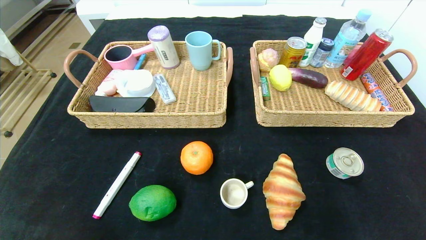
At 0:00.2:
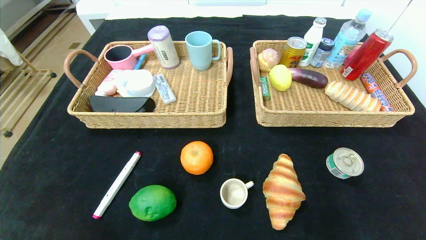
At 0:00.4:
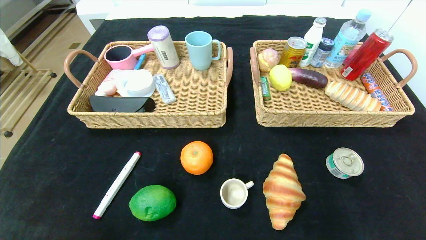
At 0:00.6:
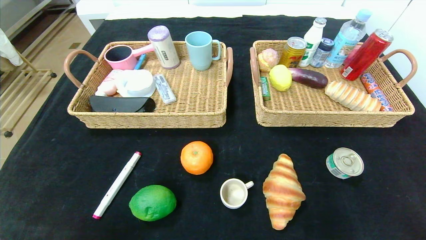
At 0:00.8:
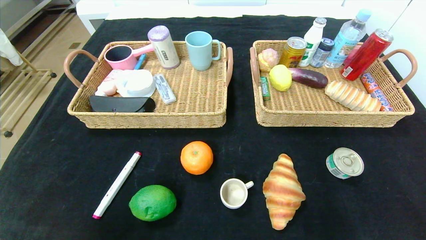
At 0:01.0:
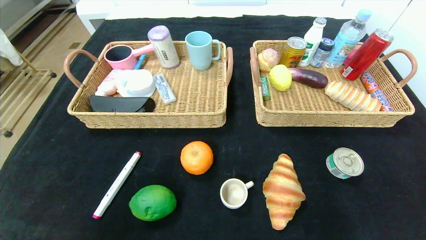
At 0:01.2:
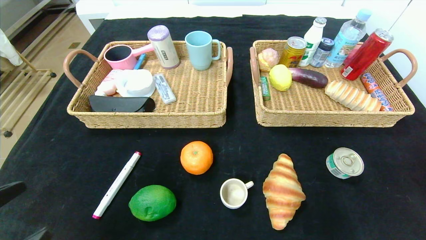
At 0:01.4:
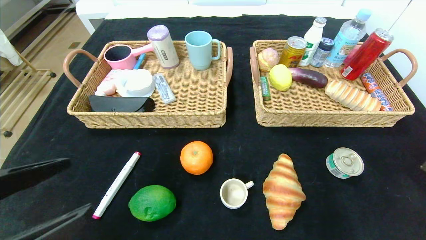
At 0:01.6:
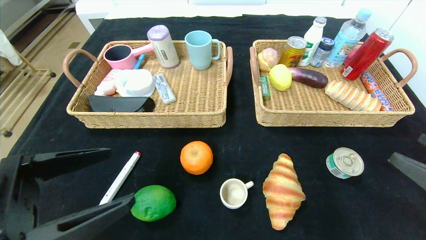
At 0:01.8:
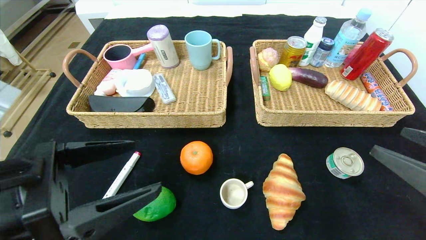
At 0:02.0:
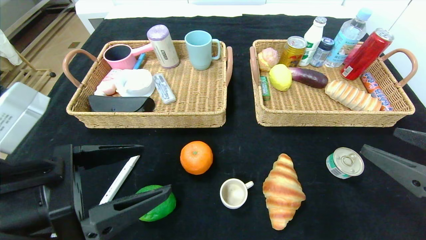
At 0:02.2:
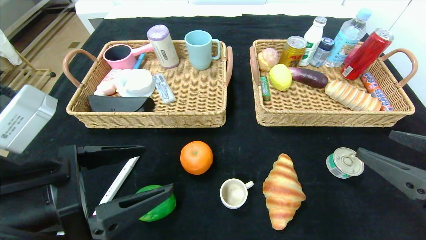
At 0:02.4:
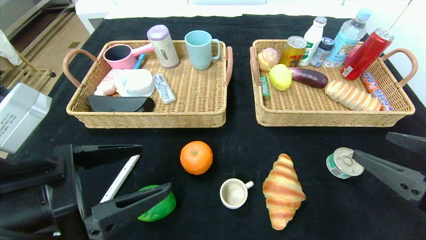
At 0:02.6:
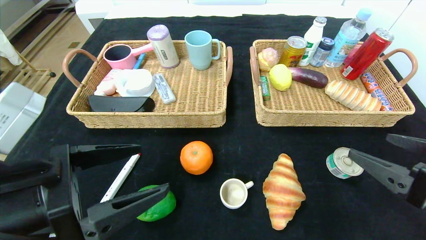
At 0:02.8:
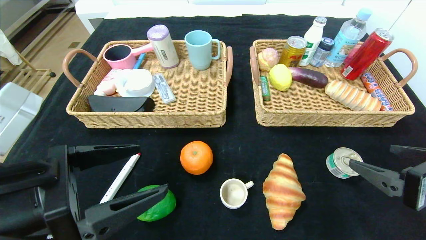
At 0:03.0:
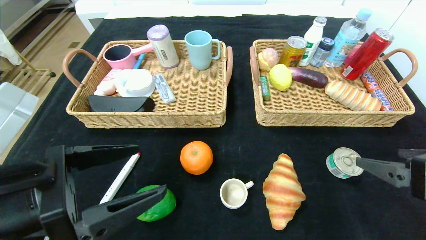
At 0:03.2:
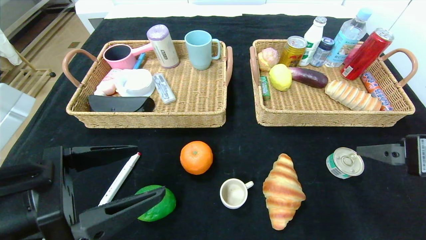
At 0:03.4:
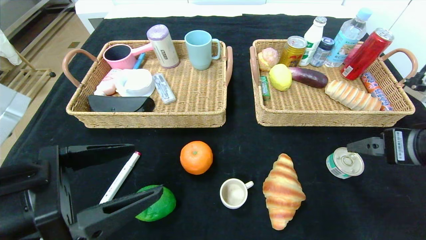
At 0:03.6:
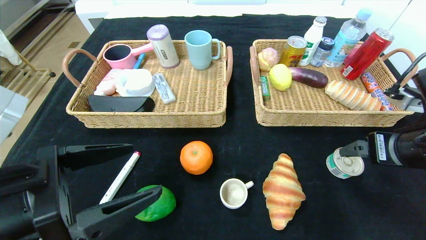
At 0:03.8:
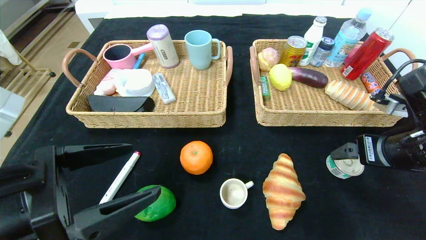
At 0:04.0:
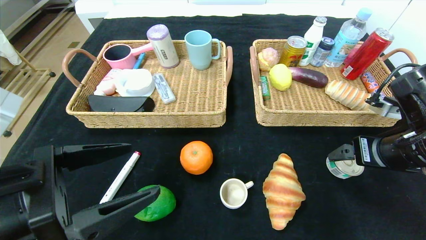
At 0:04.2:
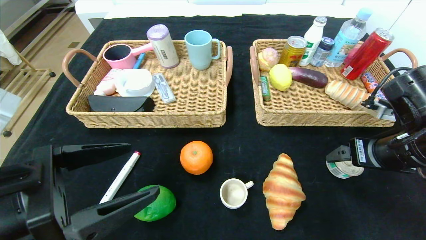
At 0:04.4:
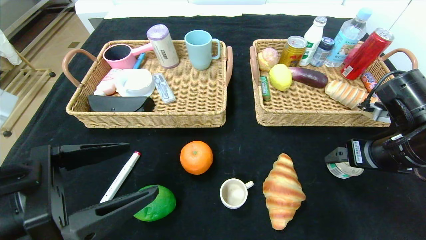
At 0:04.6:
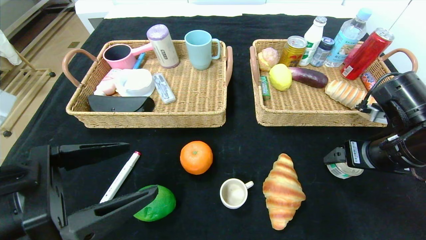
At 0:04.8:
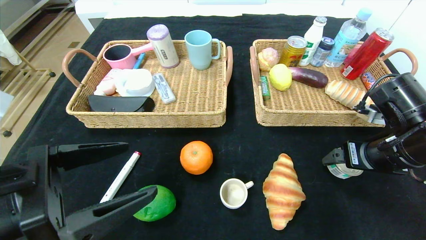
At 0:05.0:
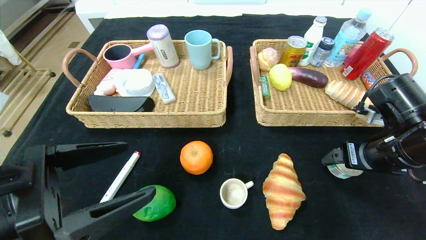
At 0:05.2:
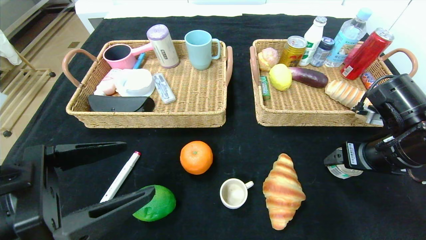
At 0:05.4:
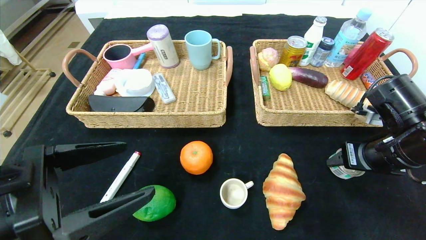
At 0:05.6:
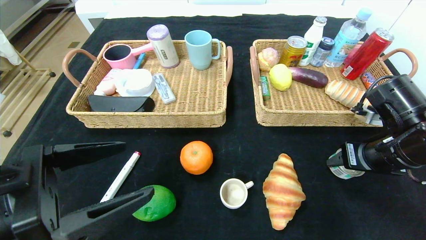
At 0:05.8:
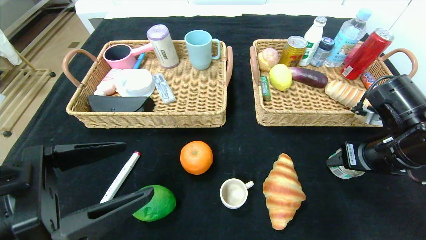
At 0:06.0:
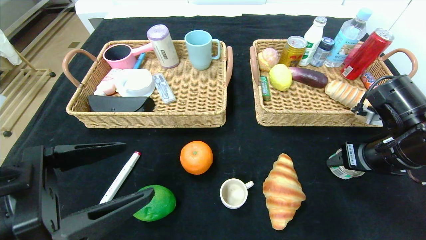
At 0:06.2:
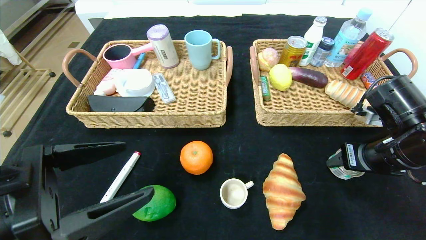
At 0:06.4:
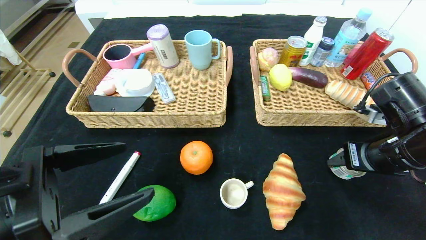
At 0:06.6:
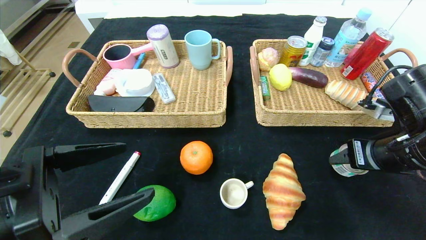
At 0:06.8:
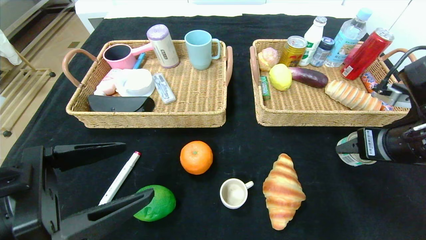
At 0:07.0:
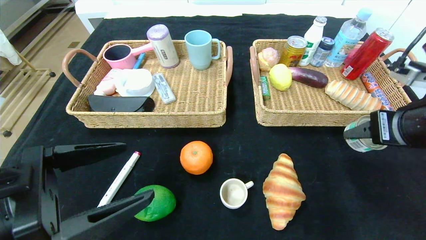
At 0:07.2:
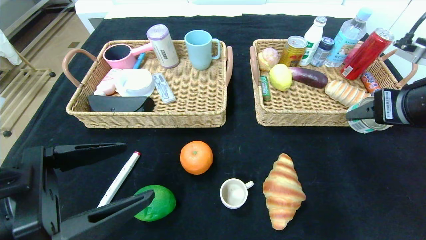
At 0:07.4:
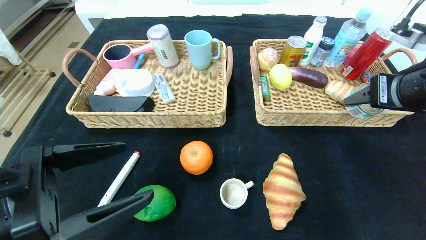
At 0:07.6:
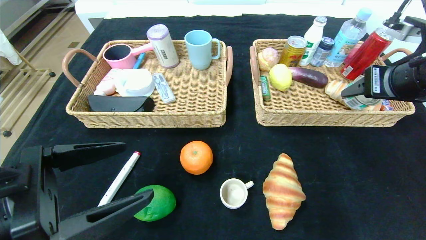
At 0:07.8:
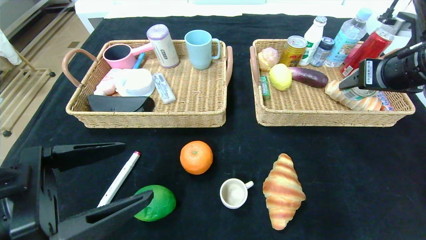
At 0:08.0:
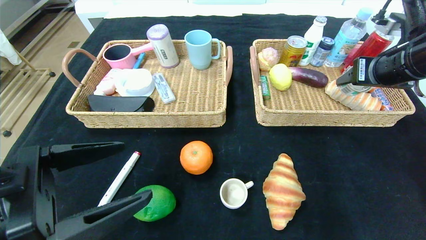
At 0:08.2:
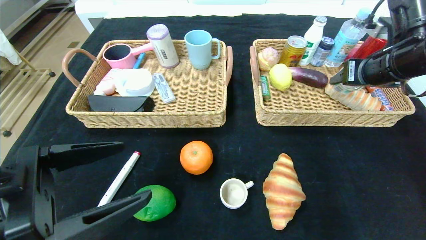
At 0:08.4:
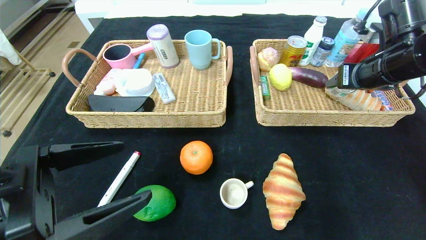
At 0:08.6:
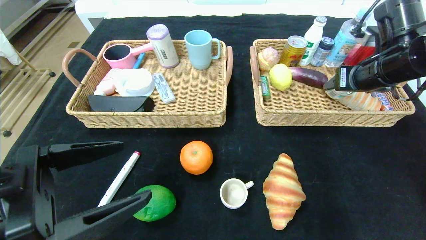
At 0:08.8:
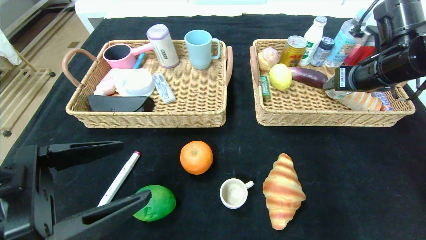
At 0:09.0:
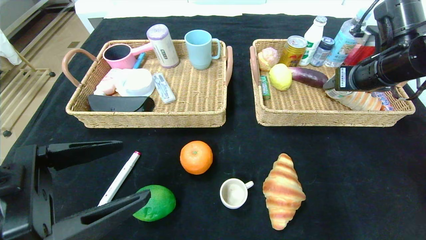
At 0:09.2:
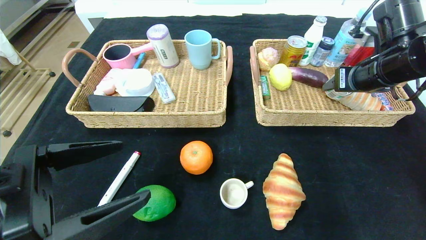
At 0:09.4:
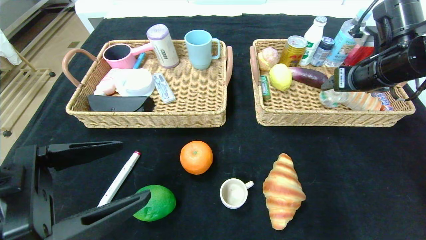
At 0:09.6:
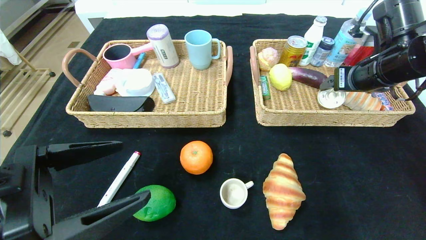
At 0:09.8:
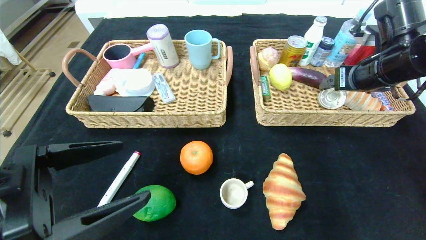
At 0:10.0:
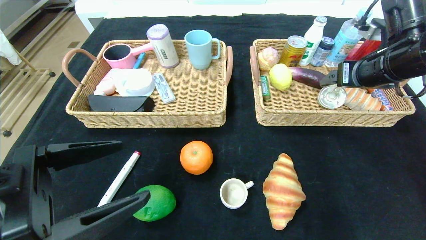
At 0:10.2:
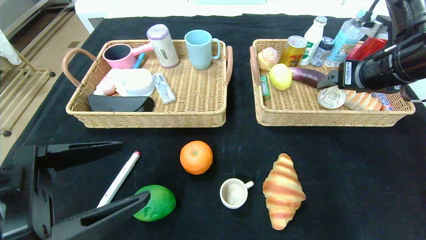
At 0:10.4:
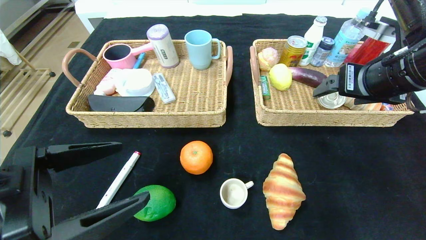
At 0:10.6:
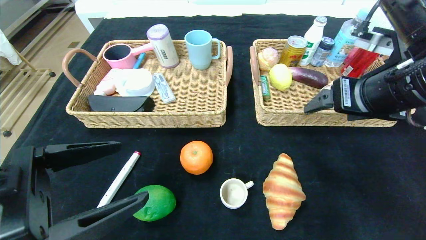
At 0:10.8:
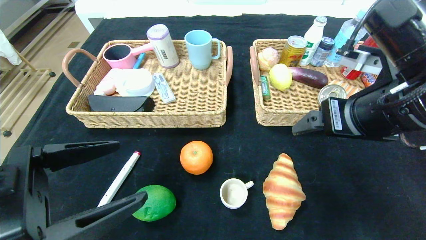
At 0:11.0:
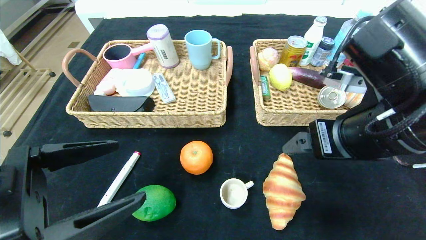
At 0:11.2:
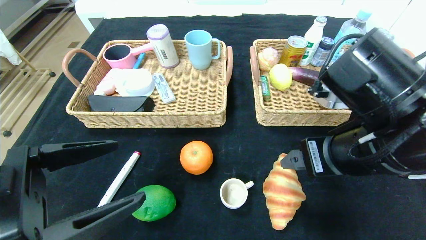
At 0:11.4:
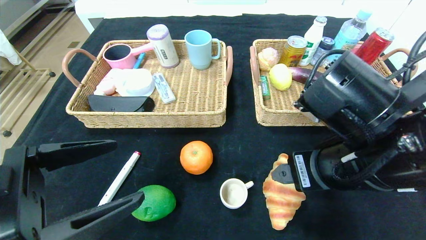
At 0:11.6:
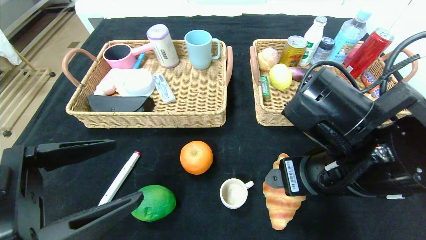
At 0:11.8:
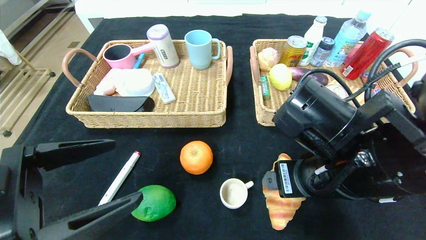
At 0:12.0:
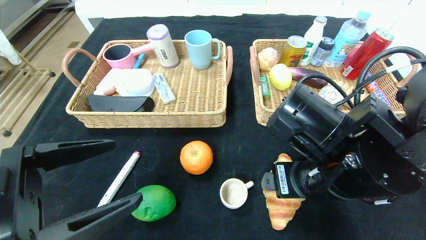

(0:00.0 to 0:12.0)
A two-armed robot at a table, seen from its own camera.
Step, 0:00.0 - 0:09.6: Grasp the can and put it in the right basket.
0:00.0 - 0:01.6: Both grippers move upward and forward, some 20 cm.
0:01.6 - 0:03.0: The right gripper moves approximately 5 cm.
0:03.0 - 0:04.4: The right gripper is displaced forward by some 10 cm.
0:04.4 - 0:06.0: The right gripper closes.
0:06.0 - 0:07.6: The right gripper heads upward, covering some 10 cm.
0:07.6 - 0:09.0: The right gripper is displaced forward by roughly 10 cm.
0:09.0 - 0:10.4: The right gripper shifts about 10 cm backward, and opens its fingers.
0:10.4 - 0:12.0: The right gripper is displaced to the left, downward and backward by some 15 cm.

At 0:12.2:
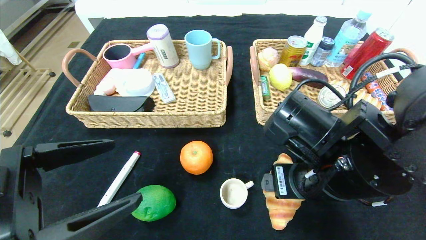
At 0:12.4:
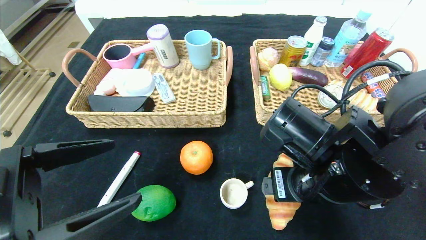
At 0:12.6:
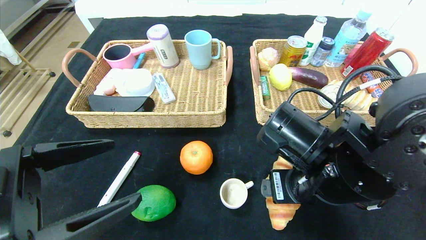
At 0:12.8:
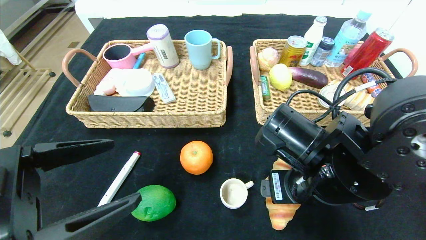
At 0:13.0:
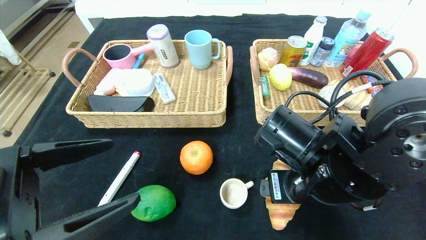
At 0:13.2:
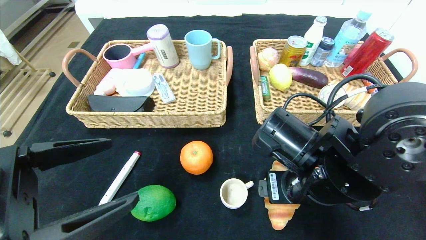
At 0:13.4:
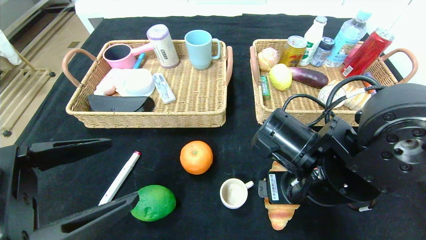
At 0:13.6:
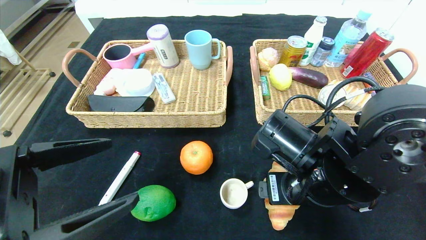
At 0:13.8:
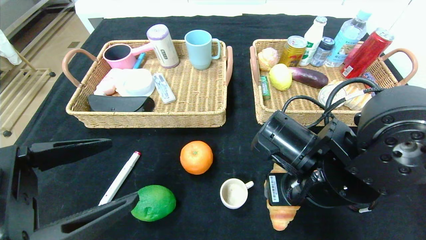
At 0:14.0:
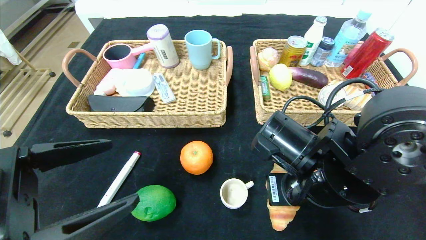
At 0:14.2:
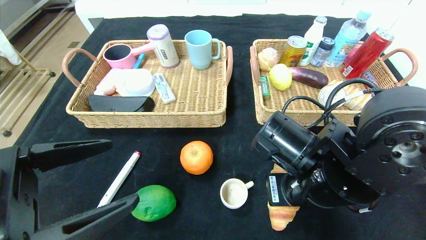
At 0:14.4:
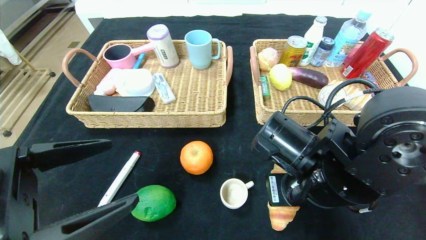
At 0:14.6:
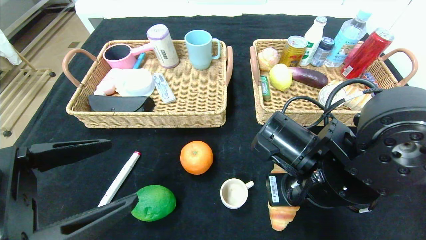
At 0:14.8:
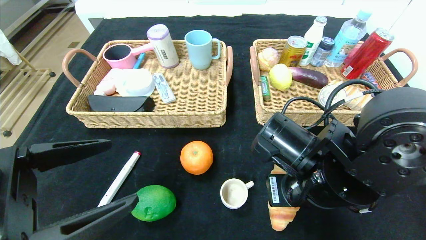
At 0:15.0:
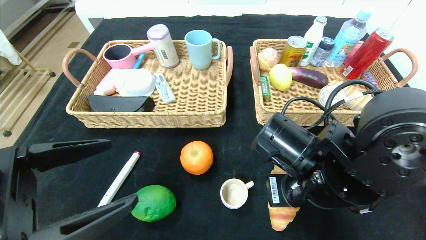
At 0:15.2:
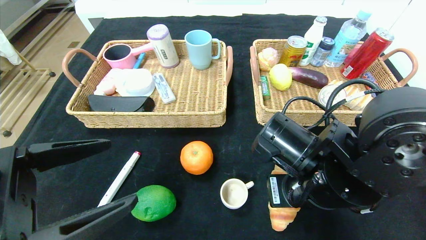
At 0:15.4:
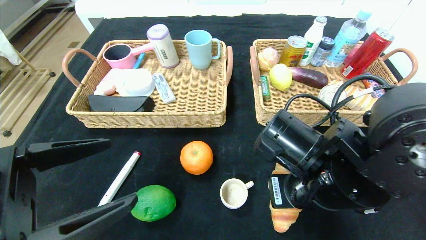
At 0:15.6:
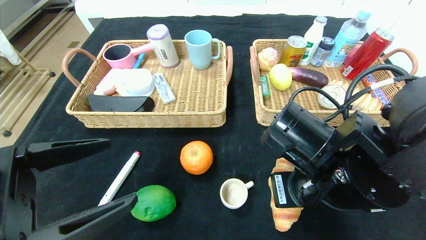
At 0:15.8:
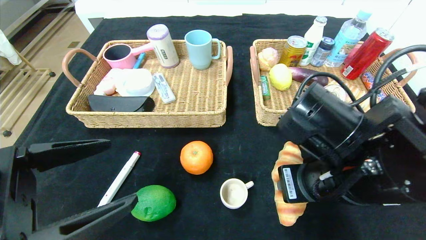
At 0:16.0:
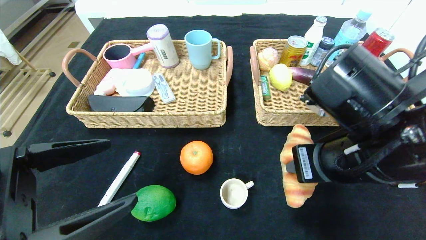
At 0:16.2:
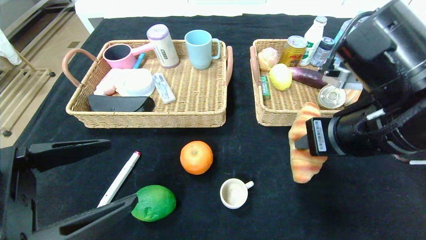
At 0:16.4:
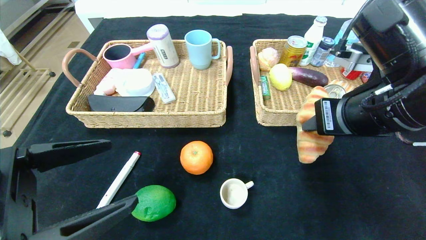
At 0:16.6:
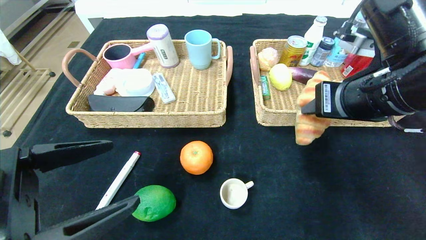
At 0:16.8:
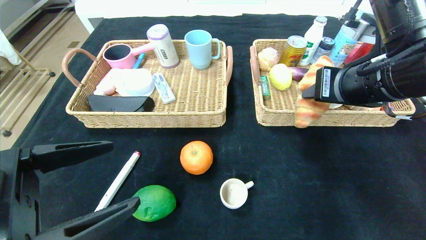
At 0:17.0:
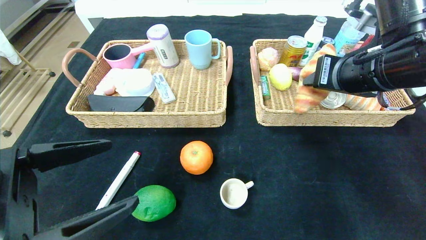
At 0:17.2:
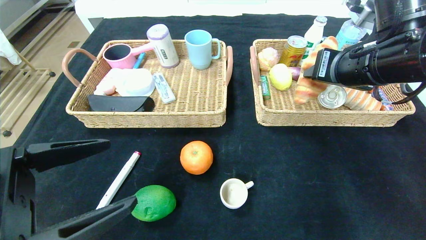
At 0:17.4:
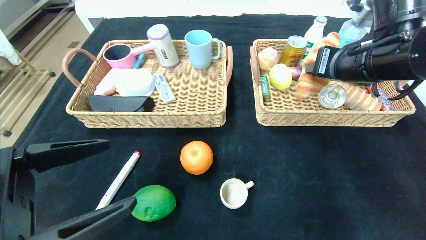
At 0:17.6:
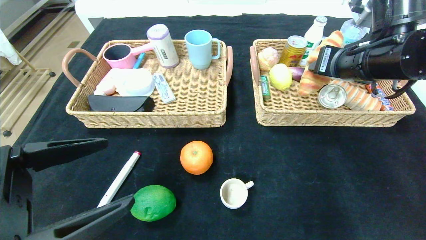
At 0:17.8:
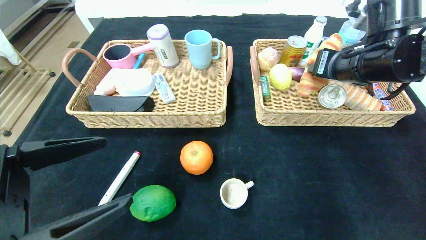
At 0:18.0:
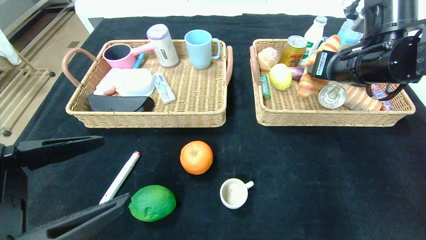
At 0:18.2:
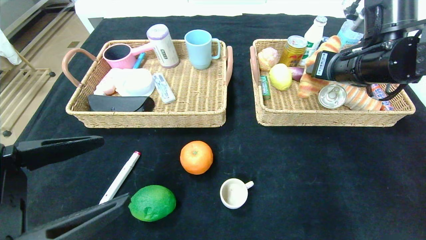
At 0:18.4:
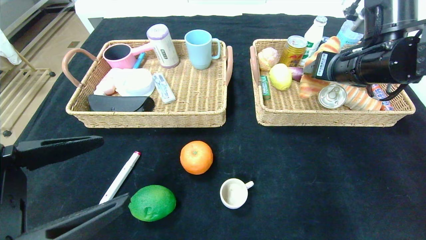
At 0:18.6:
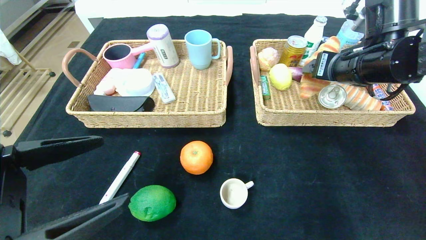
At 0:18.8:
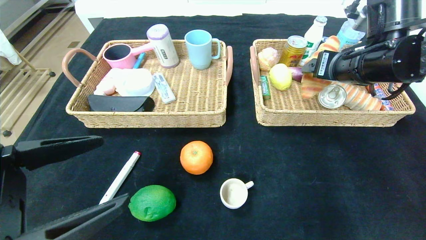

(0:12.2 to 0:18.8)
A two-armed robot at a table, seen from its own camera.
0:12.2 - 0:13.8: The right gripper closes up.
0:13.8 - 0:15.4: The right gripper closes.
0:15.4 - 0:17.2: The right gripper is displaced upward, to the right and forward by some 15 cm.
0:17.2 - 0:18.8: The right gripper opens up.
